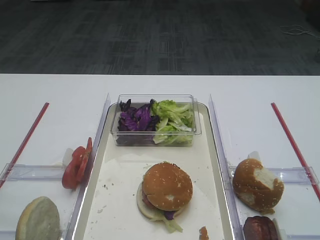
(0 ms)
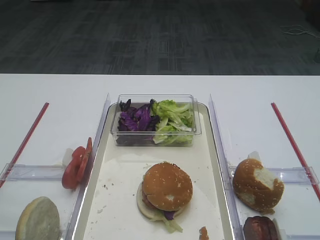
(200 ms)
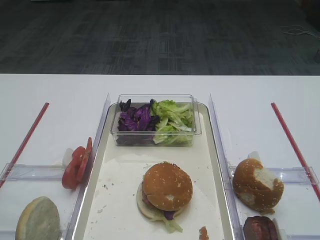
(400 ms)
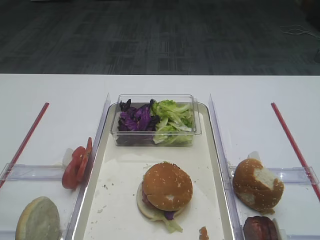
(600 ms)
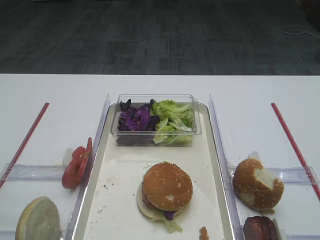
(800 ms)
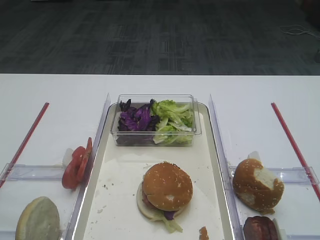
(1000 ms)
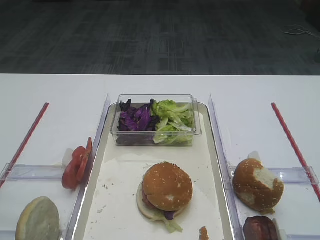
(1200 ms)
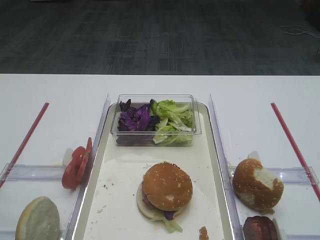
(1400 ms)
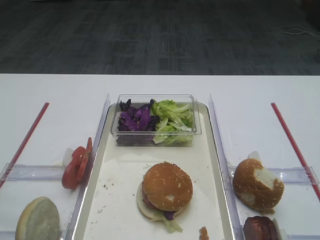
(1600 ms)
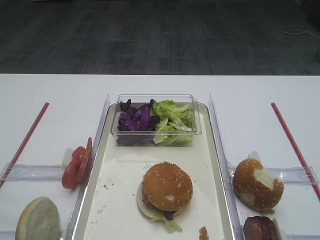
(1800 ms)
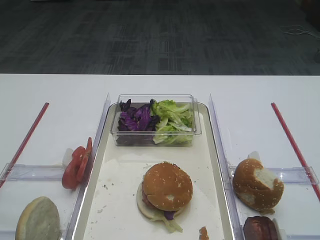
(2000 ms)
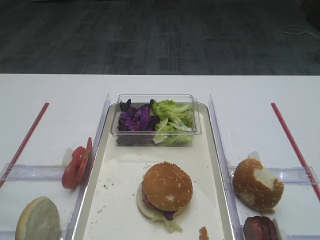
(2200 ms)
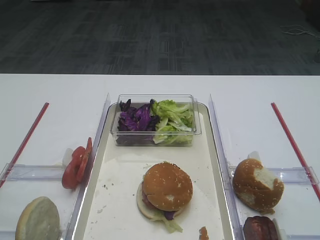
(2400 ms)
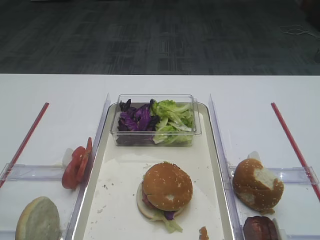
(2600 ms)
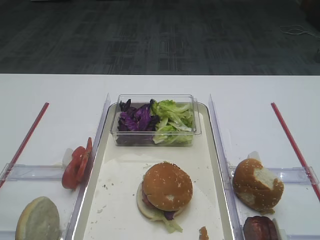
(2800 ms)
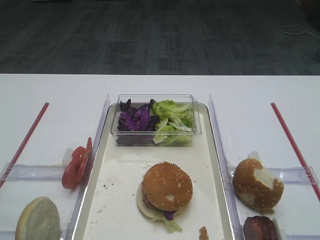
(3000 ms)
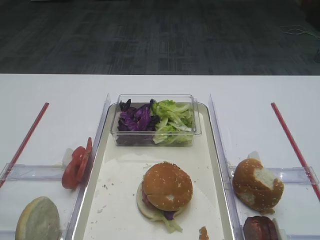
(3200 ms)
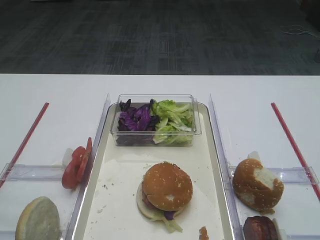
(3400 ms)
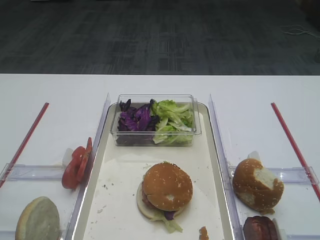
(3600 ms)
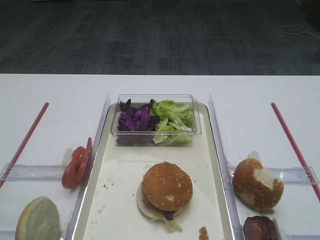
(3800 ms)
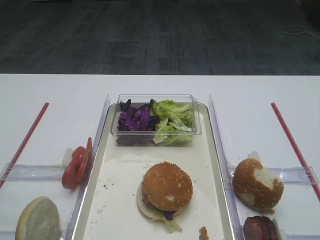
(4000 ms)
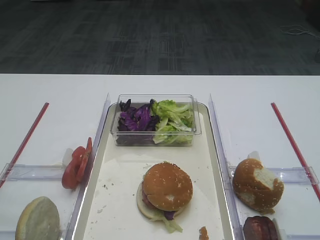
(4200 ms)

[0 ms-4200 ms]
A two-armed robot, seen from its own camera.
1400 ms to 4200 ms: Both grippers stay put.

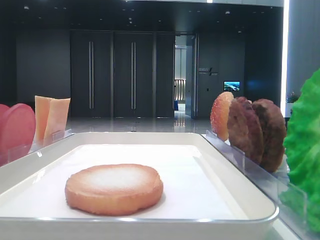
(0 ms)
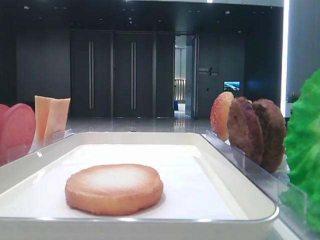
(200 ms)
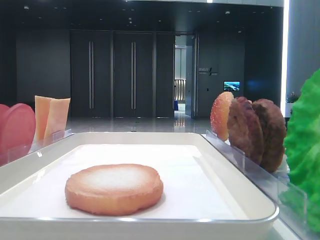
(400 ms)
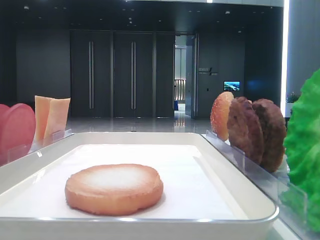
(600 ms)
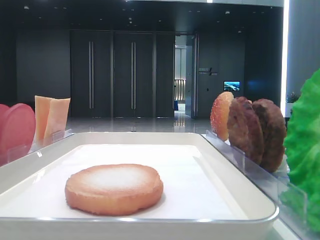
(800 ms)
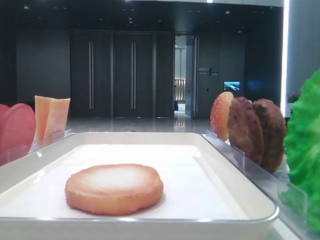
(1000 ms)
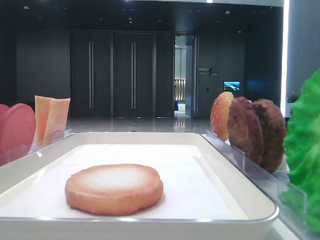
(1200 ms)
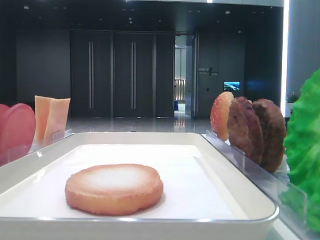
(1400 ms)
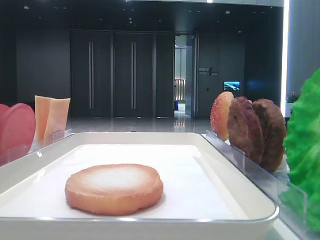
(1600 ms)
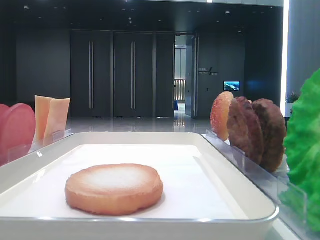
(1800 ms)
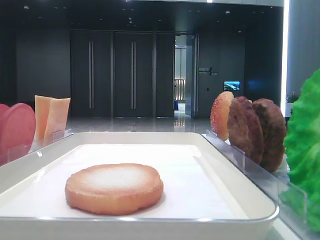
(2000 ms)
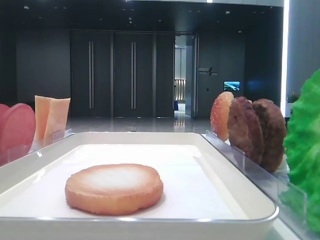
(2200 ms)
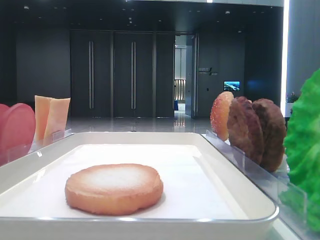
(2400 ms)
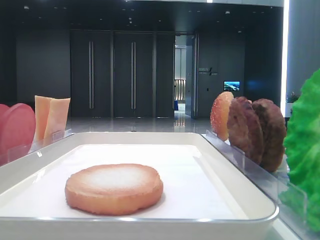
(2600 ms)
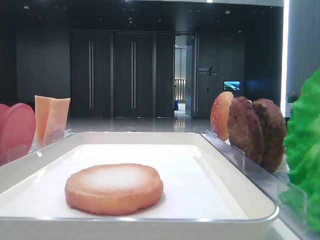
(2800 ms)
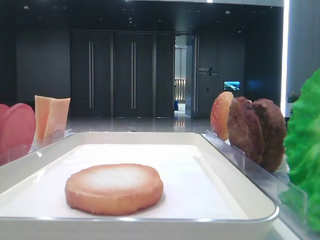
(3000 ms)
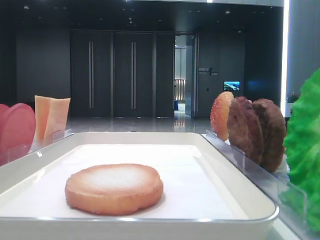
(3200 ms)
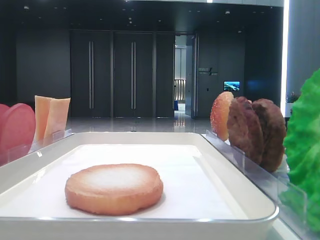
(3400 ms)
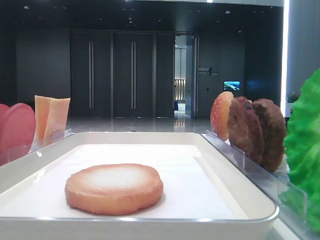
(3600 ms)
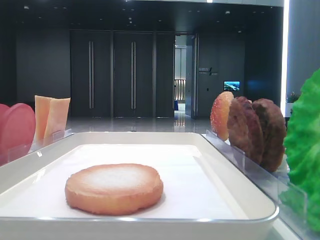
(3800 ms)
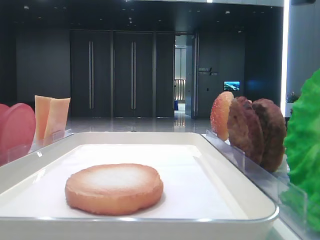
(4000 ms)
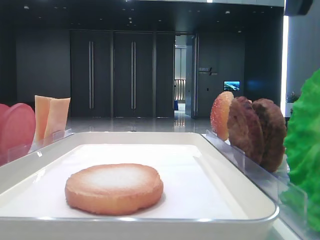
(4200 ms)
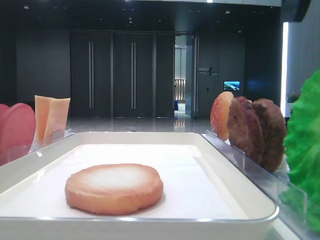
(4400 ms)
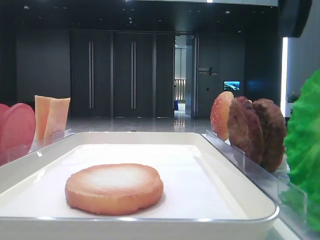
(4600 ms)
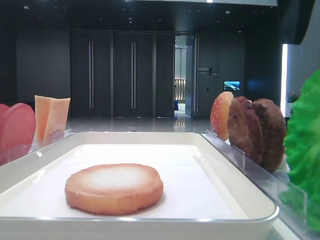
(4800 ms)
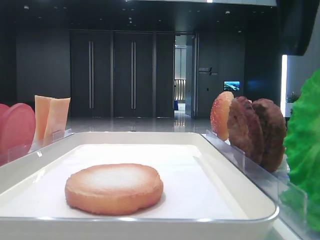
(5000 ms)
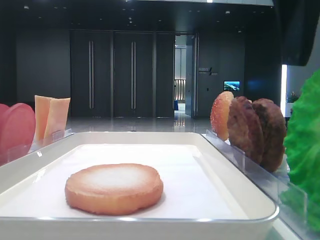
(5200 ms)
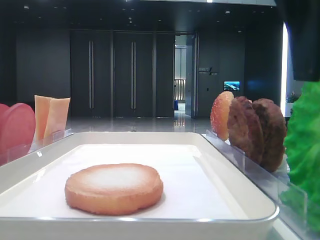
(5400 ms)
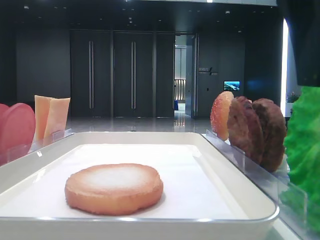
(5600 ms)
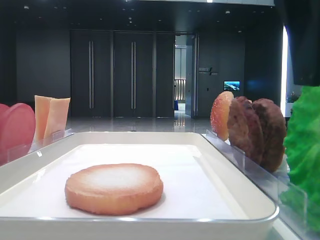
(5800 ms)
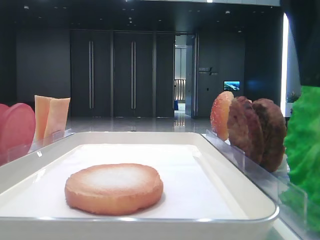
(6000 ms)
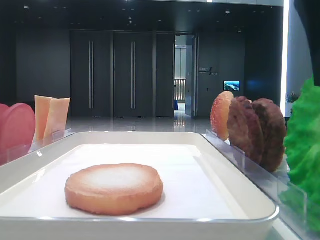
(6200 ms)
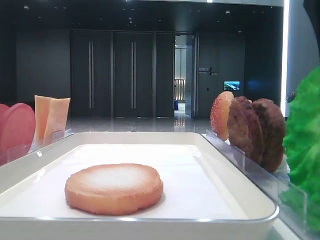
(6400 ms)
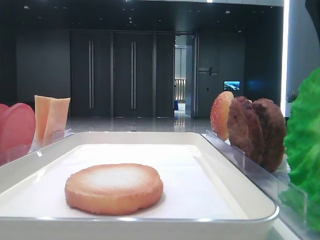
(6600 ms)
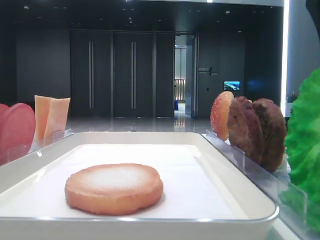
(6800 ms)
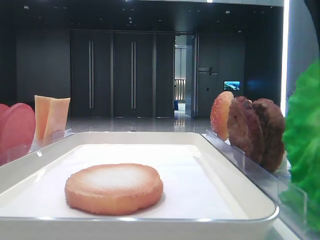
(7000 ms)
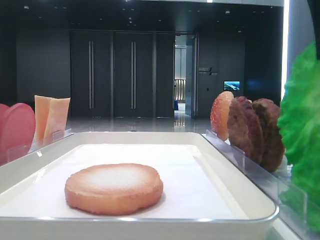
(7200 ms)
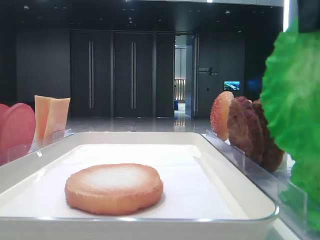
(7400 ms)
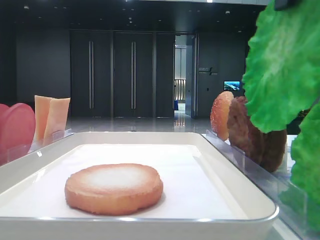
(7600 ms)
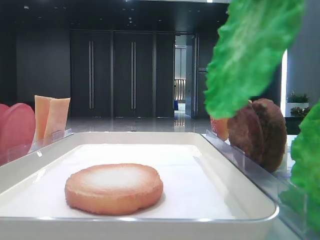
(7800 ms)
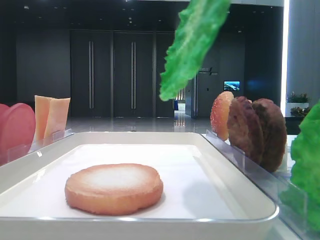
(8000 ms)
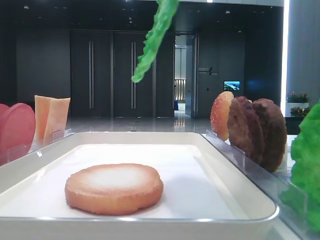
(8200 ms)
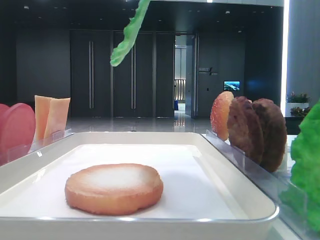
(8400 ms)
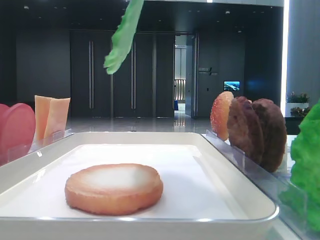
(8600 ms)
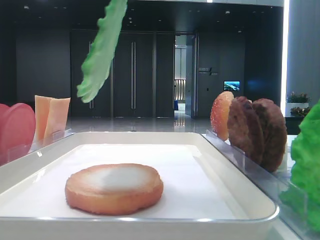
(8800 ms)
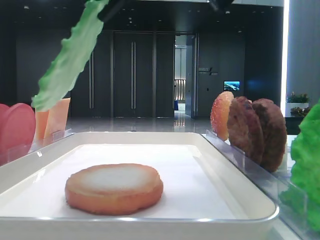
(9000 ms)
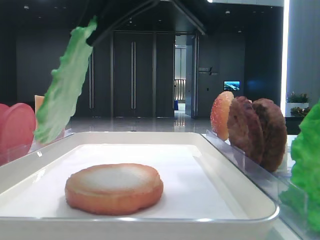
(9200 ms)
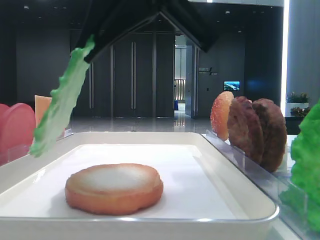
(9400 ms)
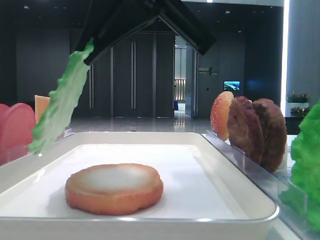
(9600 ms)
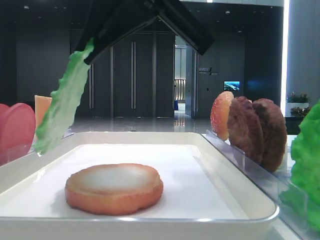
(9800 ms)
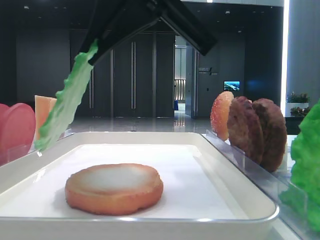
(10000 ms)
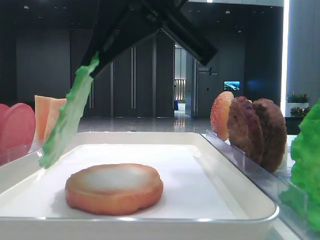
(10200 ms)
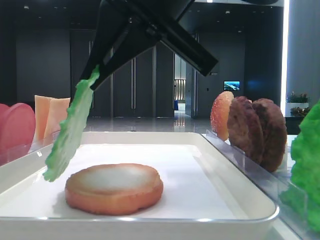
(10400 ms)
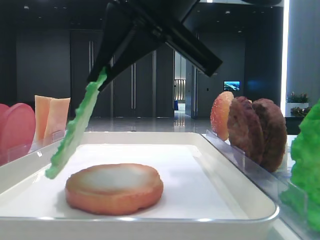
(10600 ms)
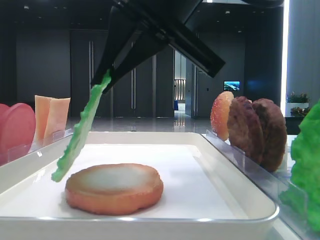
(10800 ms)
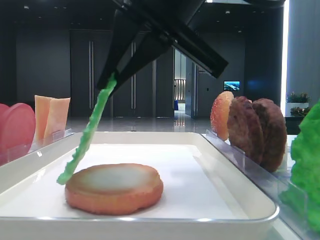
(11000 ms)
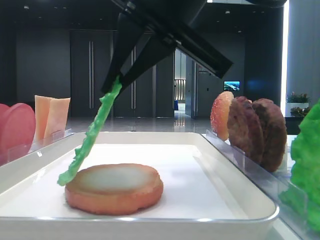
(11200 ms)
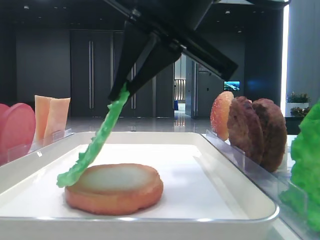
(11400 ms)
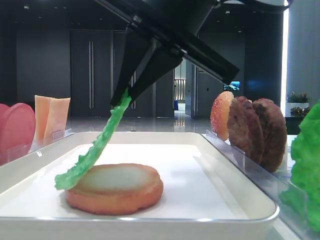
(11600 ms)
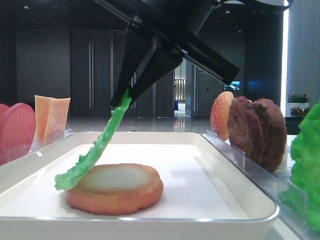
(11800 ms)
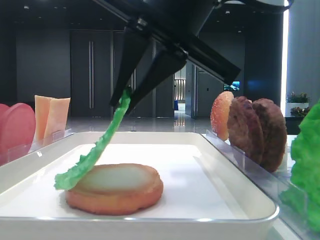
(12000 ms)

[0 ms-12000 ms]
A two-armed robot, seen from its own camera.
Step, 0 ms to 6600 ms: Grab the lettuce leaf with the right hand.
3000 ms to 4400 ms: The right gripper heads to the left and downward, covering some 10 cm.
4400 ms to 6000 ms: The grippers stay close to where they were, moving slightly.
6000 ms to 7600 ms: The right gripper goes roughly 5 cm upward, and closes its fingers.
7600 ms to 9000 ms: The right gripper travels to the left by approximately 10 cm.
9000 ms to 10400 ms: The right gripper is displaced downward by approximately 5 cm.
10400 ms to 12000 ms: The grippers make only small movements.

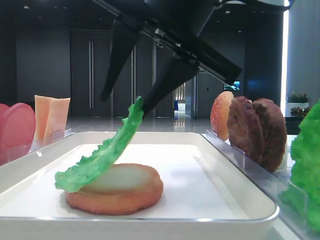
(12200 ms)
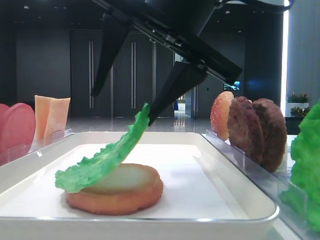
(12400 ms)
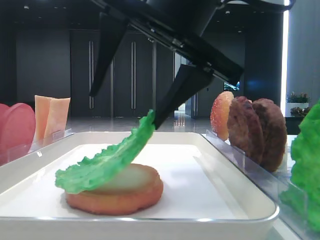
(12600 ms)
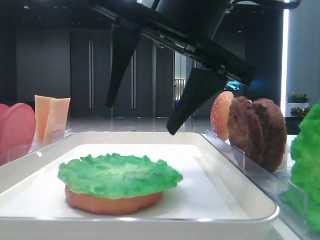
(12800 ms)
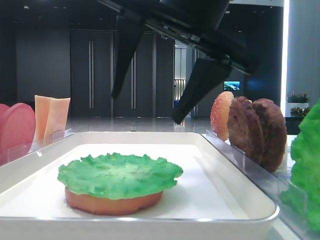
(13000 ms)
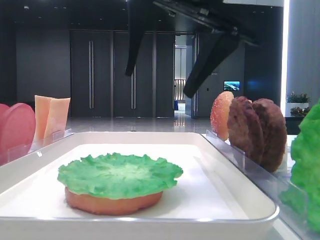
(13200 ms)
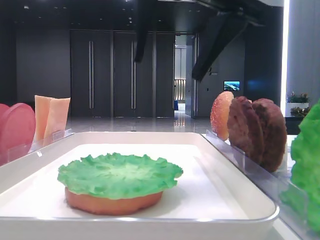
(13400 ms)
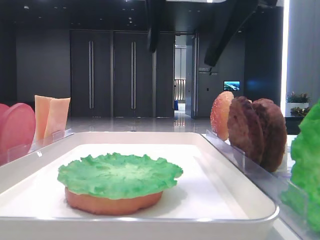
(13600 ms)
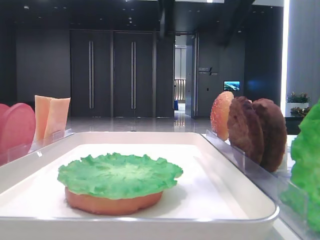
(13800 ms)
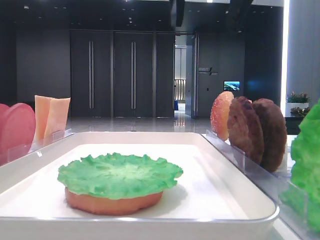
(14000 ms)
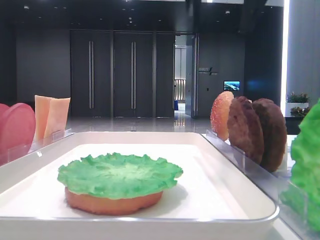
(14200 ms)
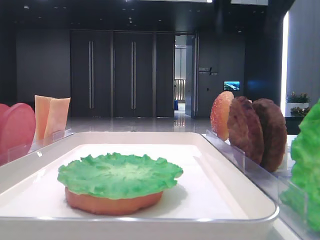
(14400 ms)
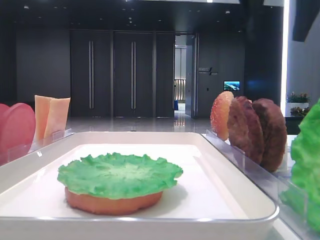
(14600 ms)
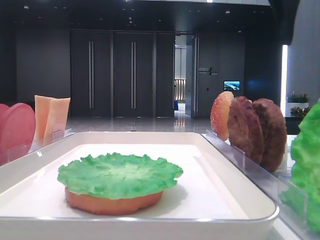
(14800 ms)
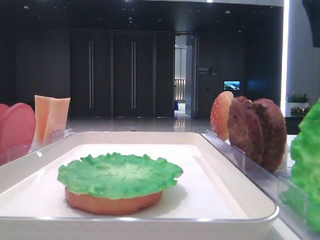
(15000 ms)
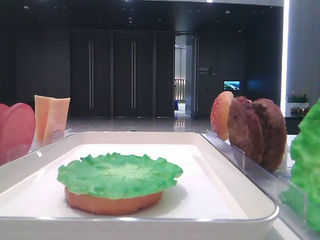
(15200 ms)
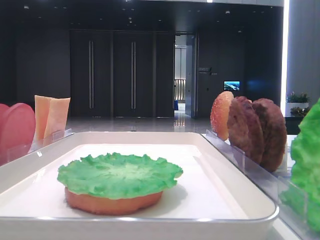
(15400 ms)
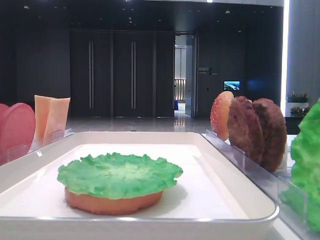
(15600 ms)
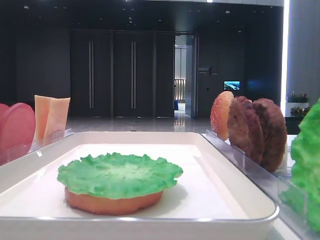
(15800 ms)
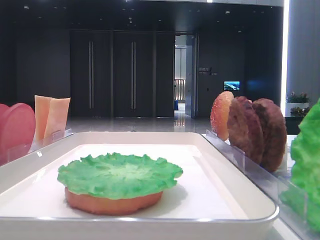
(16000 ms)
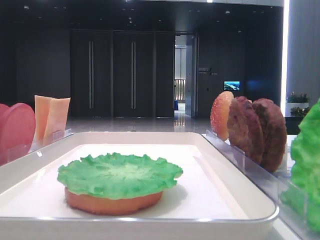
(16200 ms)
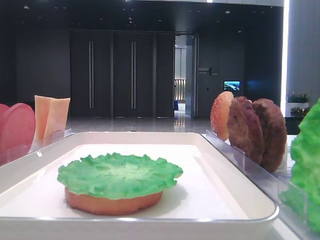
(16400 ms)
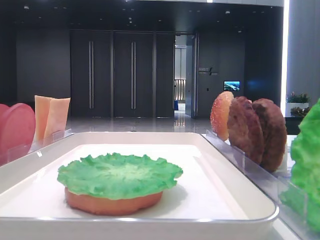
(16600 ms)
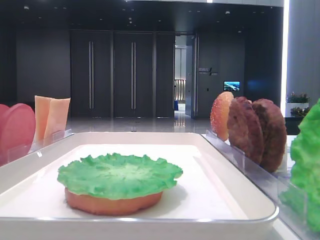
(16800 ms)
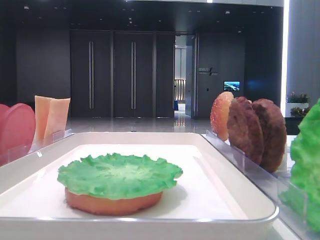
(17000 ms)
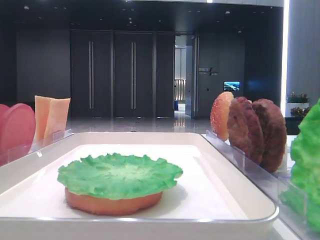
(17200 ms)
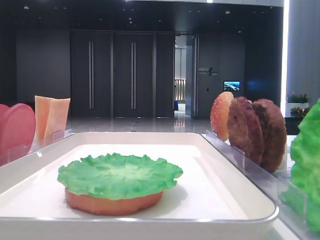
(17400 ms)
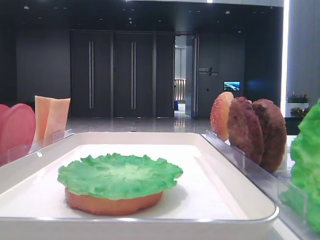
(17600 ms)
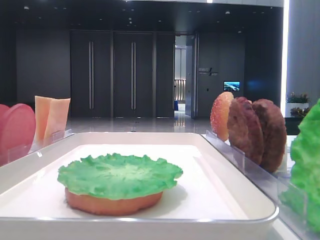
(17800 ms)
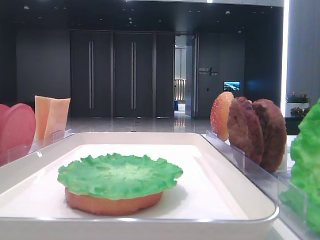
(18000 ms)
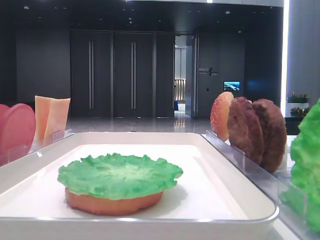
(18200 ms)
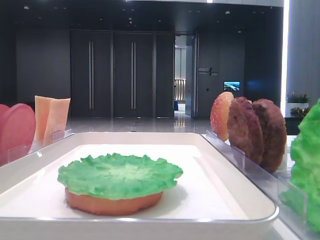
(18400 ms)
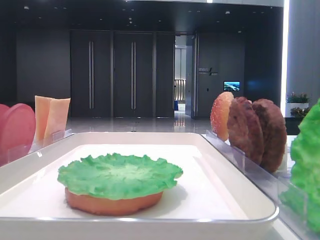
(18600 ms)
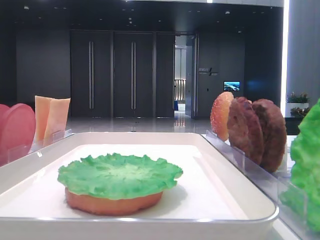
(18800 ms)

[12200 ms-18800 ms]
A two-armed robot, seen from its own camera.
12200 ms to 13800 ms: The right gripper is displaced upward by approximately 10 cm, and opens up.
13800 ms to 15400 ms: The right gripper goes some 25 cm to the right.
15400 ms to 17200 ms: The right gripper moves backward, some 30 cm.
